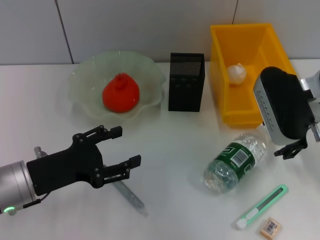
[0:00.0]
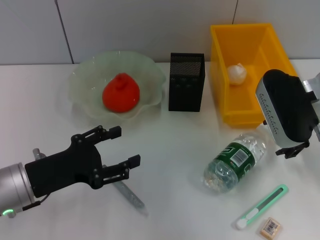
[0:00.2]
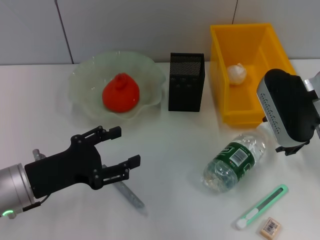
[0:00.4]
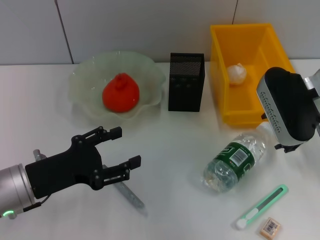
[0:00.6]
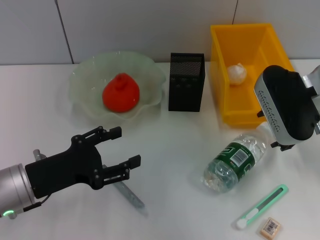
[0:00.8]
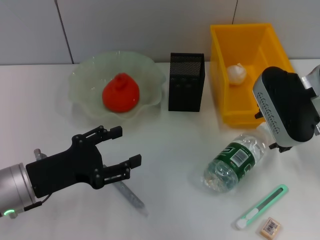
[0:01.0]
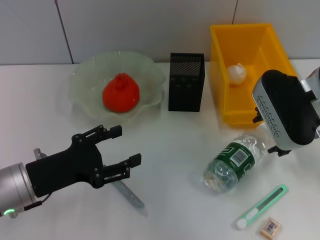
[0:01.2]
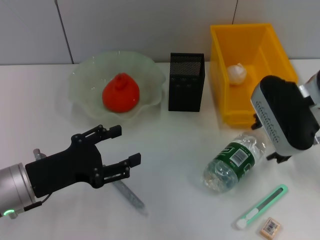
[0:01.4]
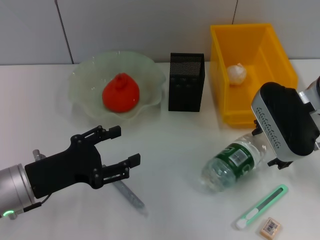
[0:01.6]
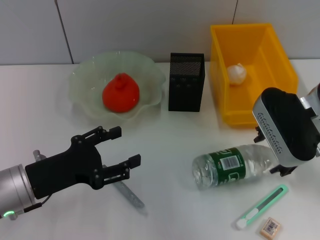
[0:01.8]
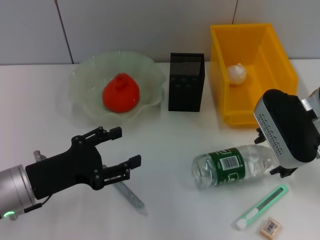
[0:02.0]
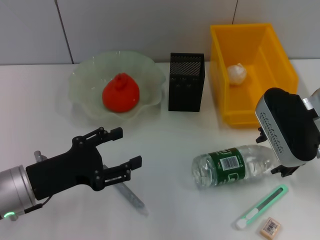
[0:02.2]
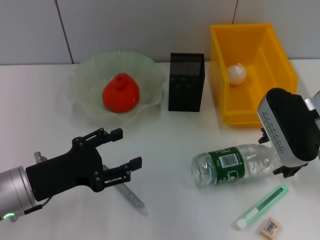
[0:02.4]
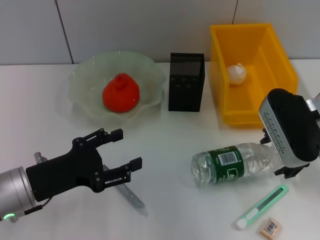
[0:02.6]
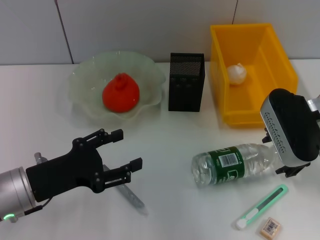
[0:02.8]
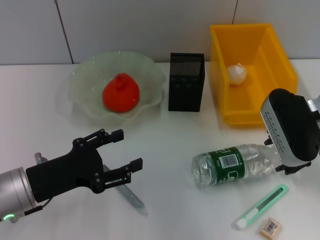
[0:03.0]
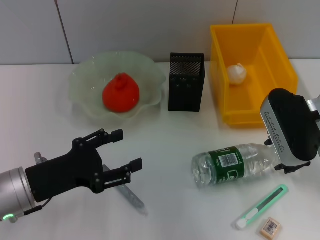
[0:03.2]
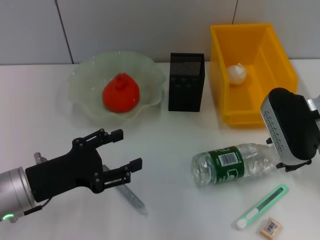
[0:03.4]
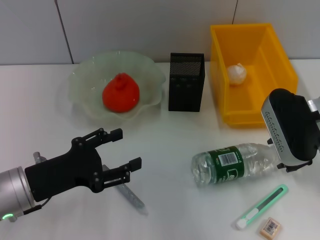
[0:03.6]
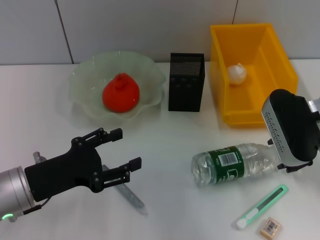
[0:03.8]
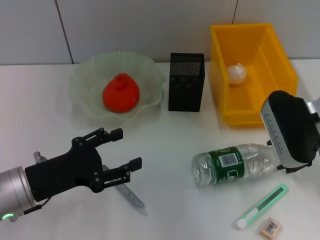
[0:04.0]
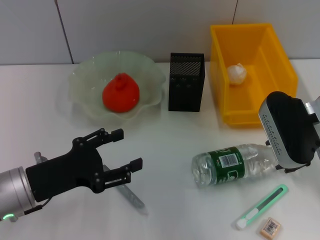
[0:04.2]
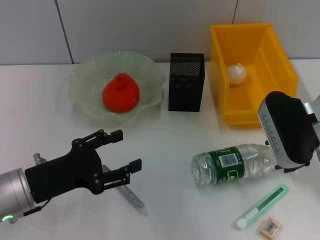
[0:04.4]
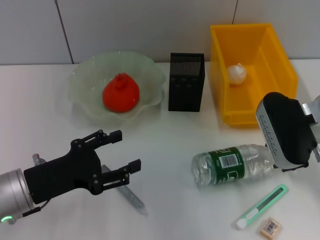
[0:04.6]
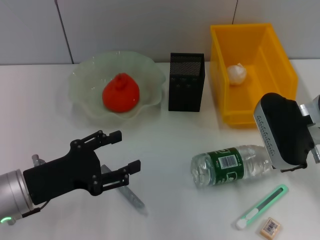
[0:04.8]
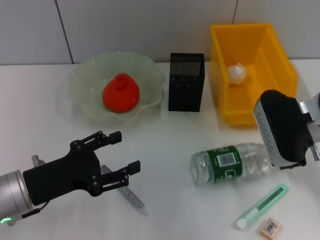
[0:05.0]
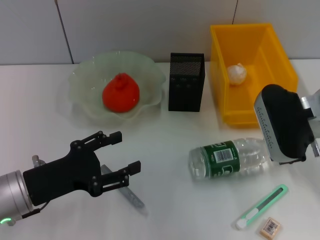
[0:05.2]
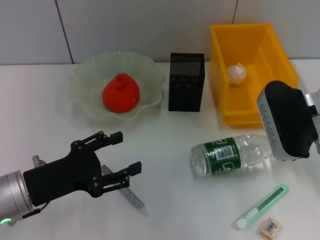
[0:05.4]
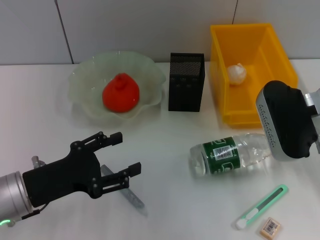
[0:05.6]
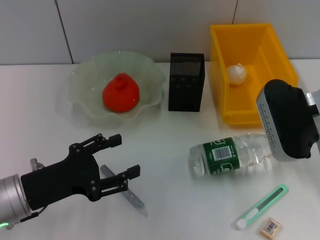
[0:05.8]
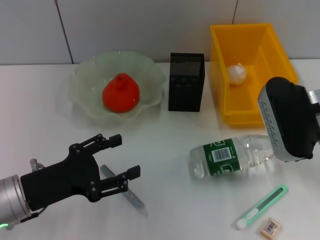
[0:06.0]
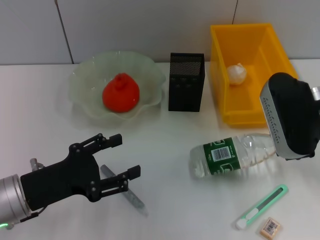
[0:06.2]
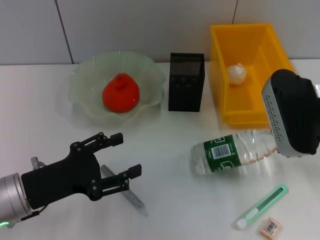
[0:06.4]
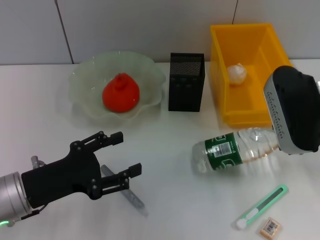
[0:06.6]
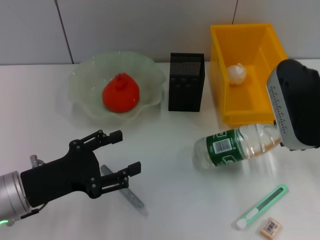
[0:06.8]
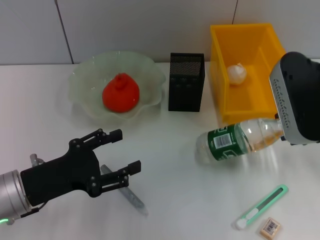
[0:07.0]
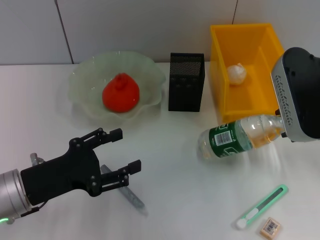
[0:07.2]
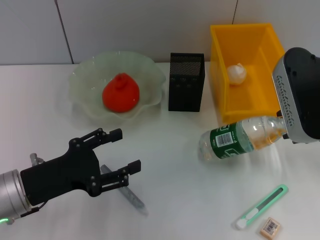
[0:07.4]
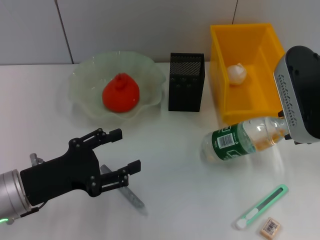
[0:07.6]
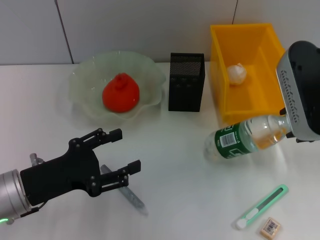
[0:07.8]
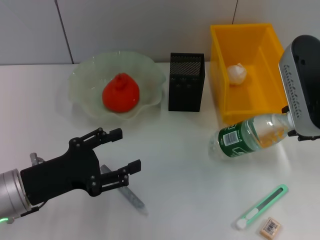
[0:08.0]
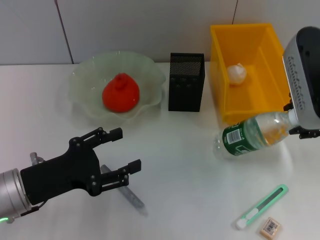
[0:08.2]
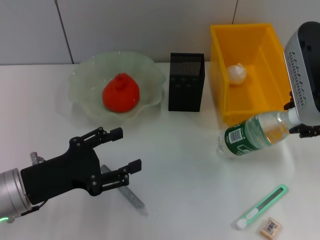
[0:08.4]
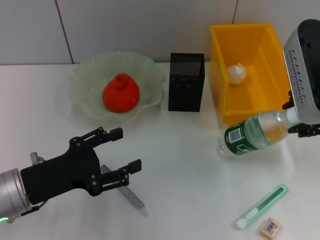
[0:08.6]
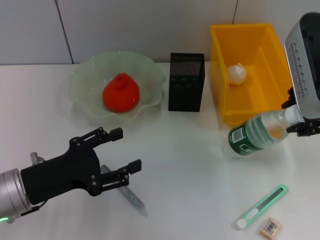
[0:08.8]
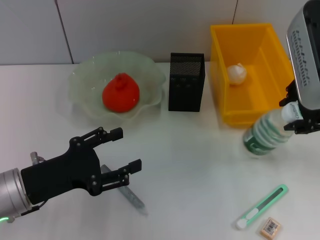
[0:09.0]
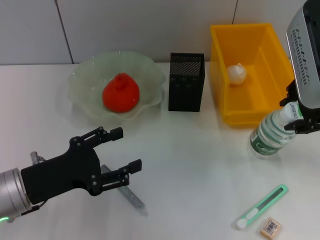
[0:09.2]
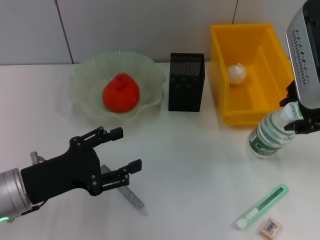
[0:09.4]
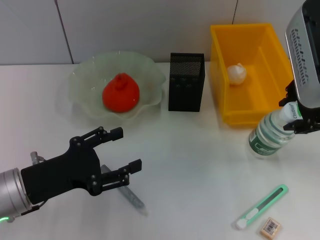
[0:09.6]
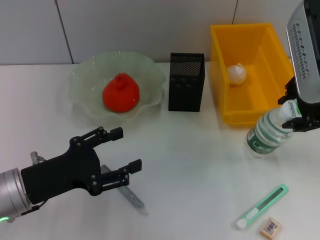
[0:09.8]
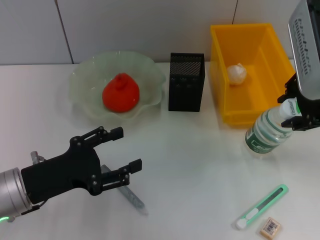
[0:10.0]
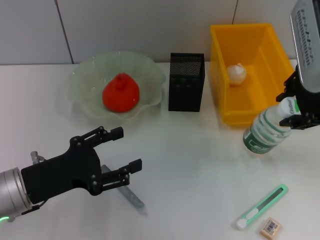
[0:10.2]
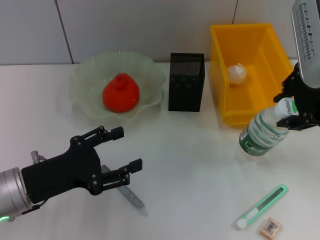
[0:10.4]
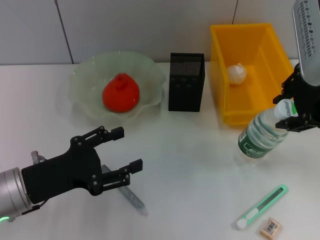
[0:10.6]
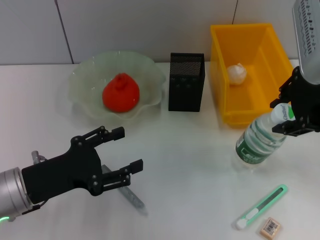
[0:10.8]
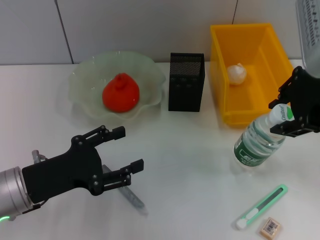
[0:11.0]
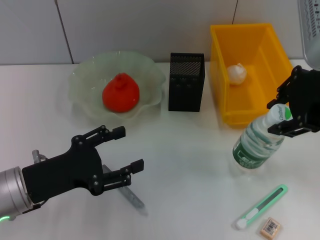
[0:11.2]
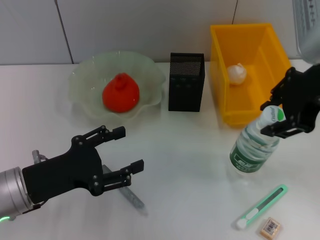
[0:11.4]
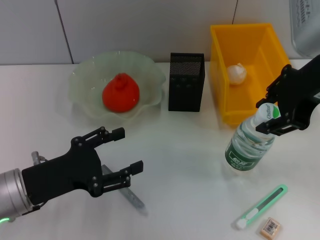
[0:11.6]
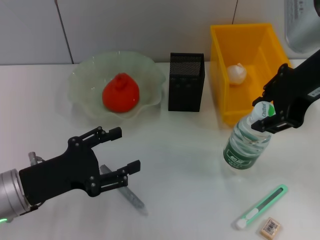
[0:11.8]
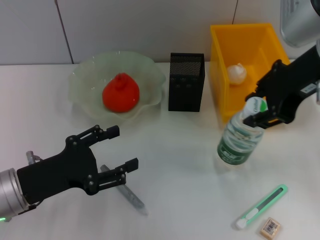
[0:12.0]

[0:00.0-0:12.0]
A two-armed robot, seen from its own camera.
Step, 0:00.0 to 0:04.8: Grab the water bottle with the right hand.
0:00.0 to 0:03.0: The grippers move only a little.
0:03.0 to 0:04.4: Both grippers stay put.
0:04.4 to 0:06.0: The grippers make only small movements.
0:06.0 to 0:07.6: The right gripper changes place by roughly 5 cm.
0:07.6 to 0:10.4: There are only small adjustments of the grippers.
0:10.4 to 0:12.0: The grippers make only small movements.

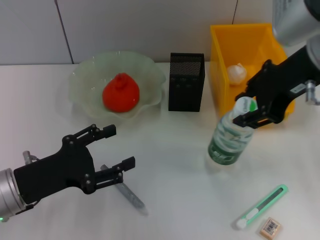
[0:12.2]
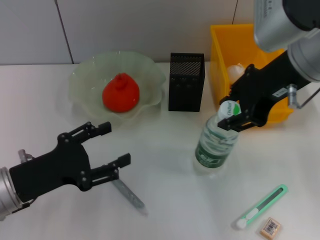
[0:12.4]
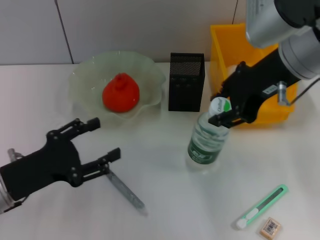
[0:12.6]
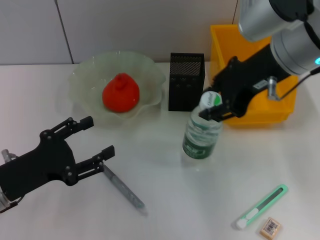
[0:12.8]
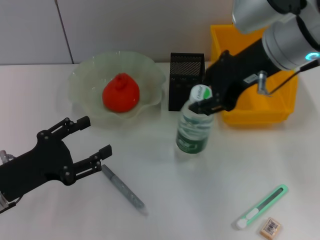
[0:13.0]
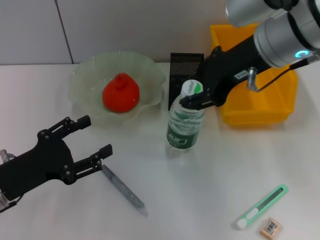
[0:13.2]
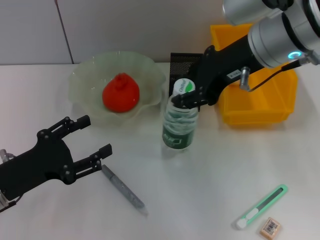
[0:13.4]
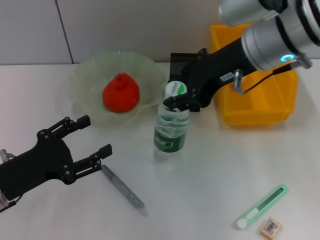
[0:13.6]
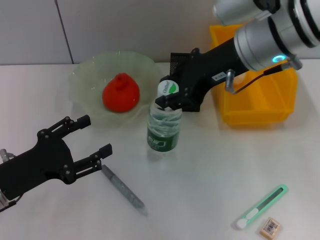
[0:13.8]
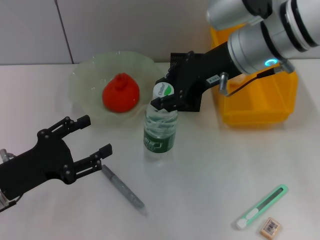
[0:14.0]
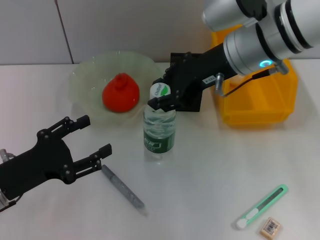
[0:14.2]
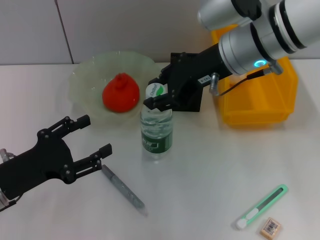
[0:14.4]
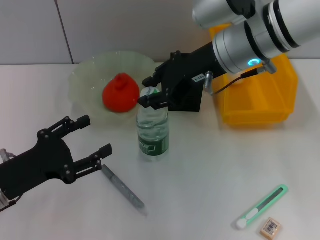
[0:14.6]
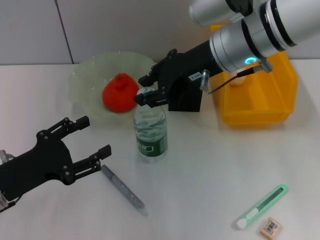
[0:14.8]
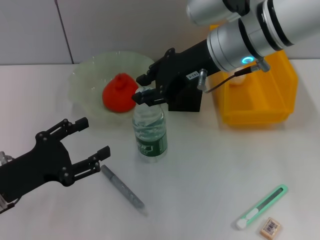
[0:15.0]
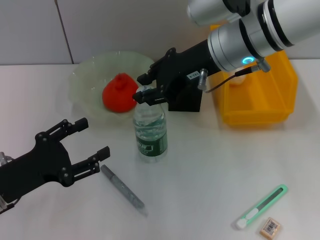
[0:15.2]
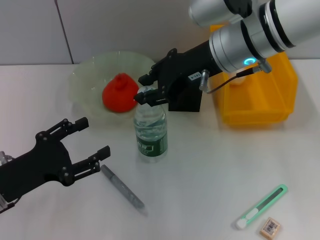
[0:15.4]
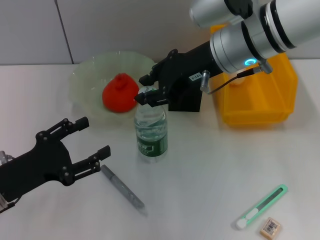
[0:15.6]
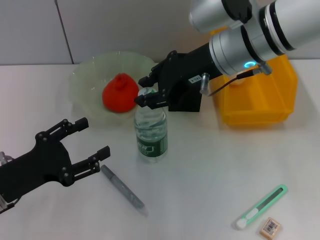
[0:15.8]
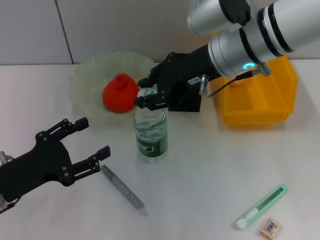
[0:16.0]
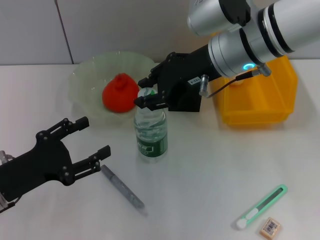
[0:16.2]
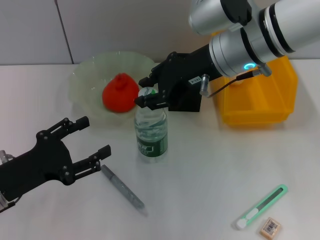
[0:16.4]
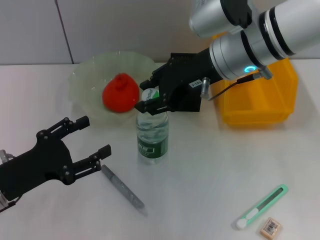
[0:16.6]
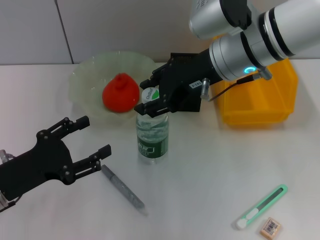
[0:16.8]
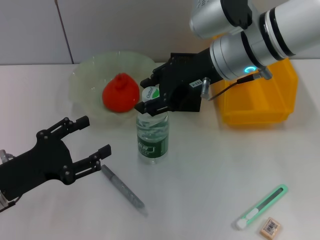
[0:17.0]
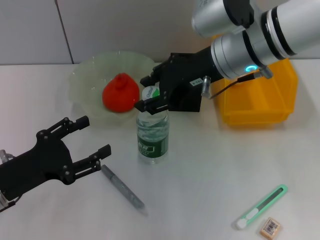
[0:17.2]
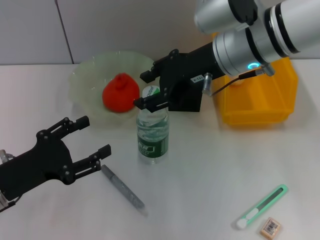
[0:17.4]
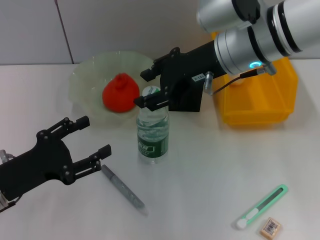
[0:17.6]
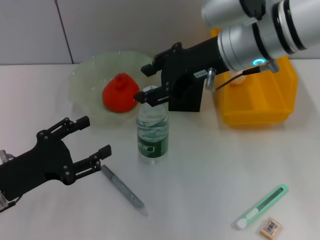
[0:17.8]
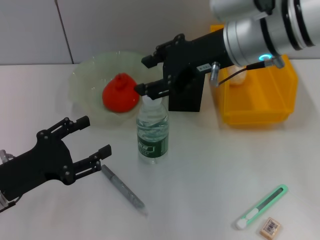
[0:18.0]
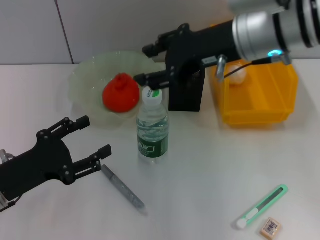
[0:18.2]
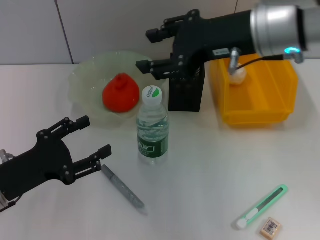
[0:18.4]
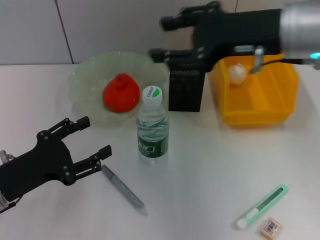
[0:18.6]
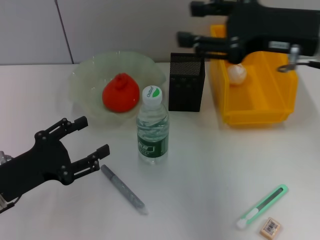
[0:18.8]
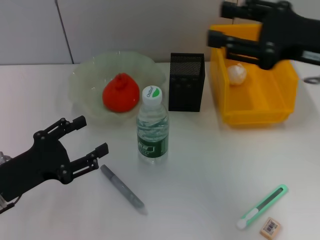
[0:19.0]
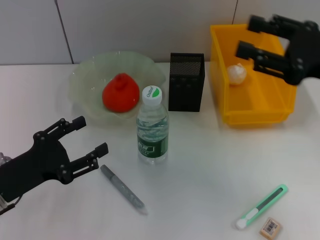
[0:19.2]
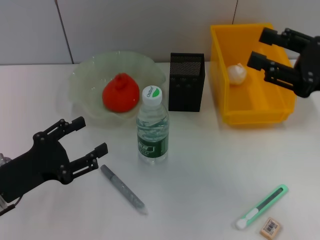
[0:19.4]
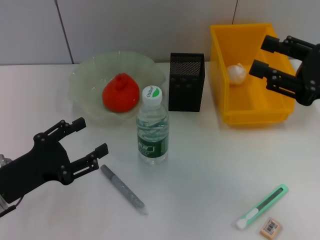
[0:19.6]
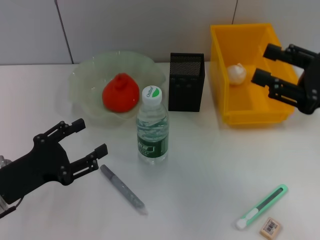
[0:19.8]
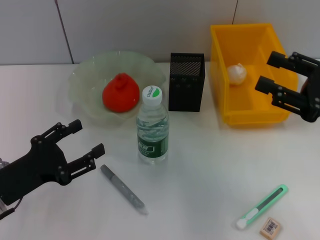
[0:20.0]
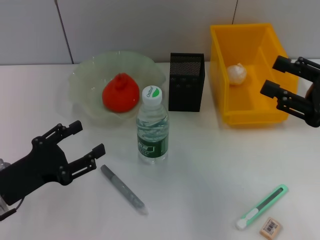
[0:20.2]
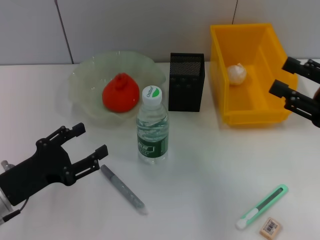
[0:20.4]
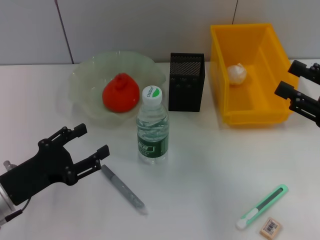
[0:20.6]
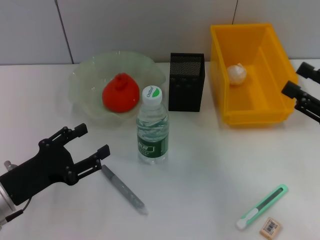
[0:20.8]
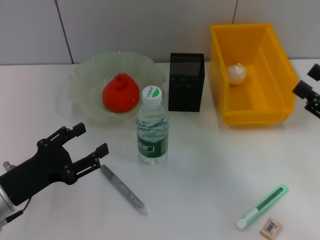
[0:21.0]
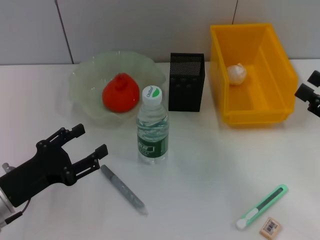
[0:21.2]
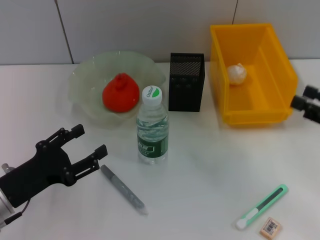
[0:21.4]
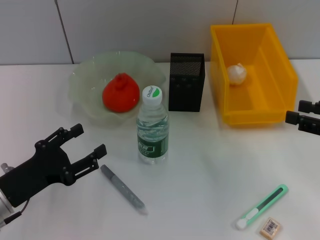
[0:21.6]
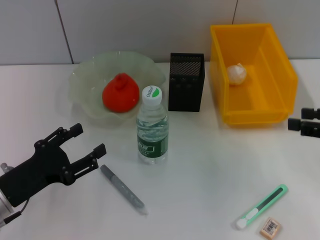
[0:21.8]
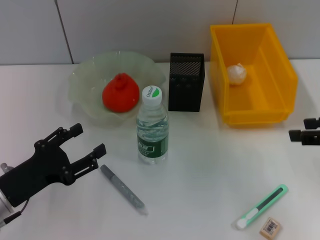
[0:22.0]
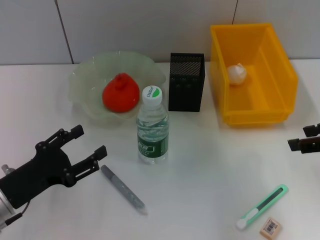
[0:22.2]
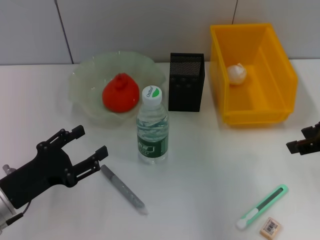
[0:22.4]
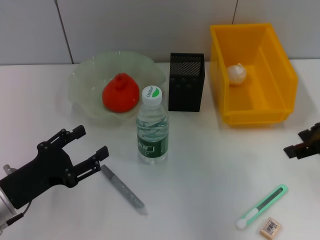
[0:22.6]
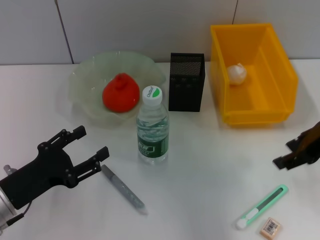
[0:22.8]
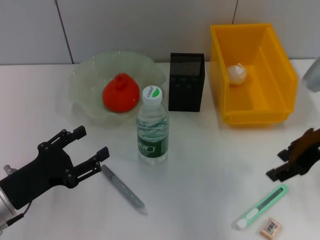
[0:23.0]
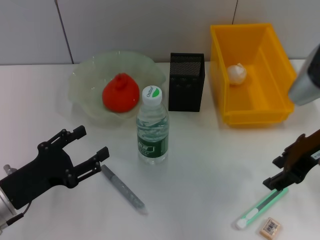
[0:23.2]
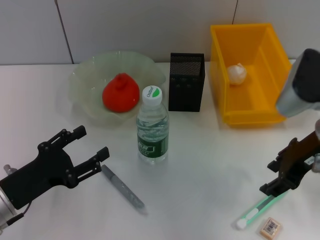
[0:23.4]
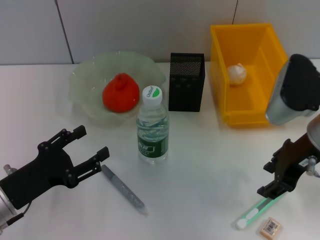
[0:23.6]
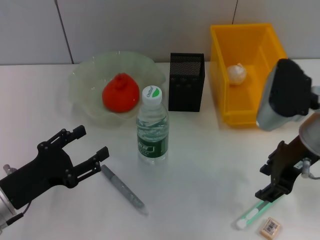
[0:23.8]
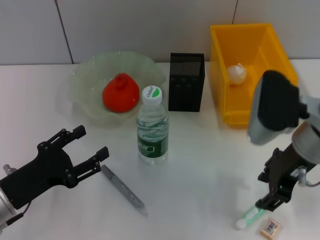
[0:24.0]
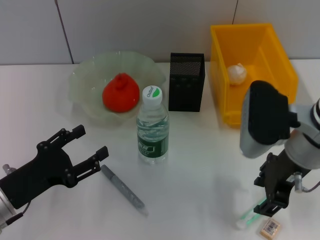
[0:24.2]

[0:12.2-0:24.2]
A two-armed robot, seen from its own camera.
Step, 0:12.2 to 0:17.6: Place the water bottle on the table with the right hand.
0:12.2 to 0:13.8: The right gripper ends up roughly 5 cm from where it was.
0:13.8 to 0:15.2: The grippers make only small movements.
0:15.2 to 0:16.6: Both grippers stay put.
0:16.6 to 0:18.2: The grippers stay close to where they were, moving slightly.
0:18.2 to 0:19.8: The right gripper goes roughly 20 cm to the right, downward and backward.
0:19.8 to 0:21.2: The right gripper moves downward, about 5 cm.
0:21.2 to 0:22.6: The right gripper moves upward, forward and to the left, about 10 cm.
0:22.6 to 0:24.2: The right gripper travels to the left by roughly 10 cm.
